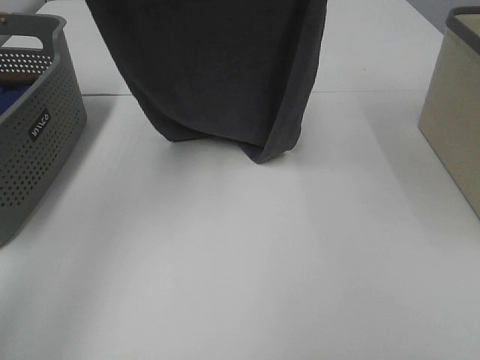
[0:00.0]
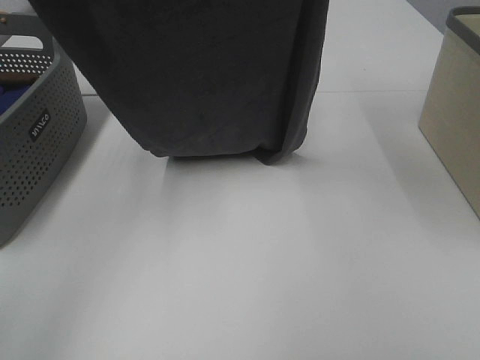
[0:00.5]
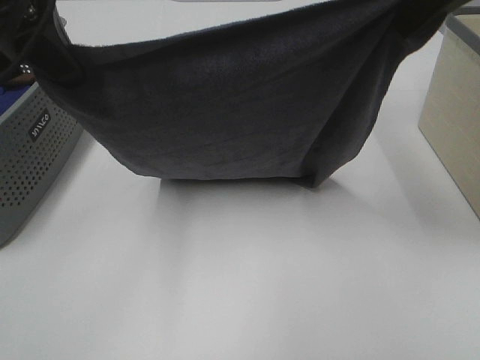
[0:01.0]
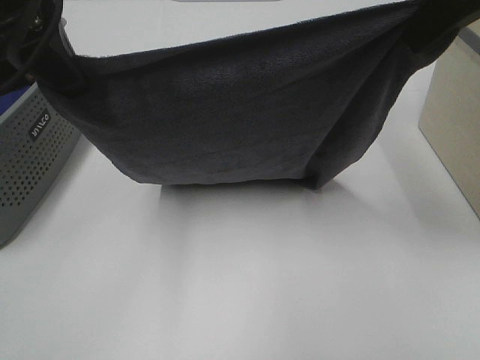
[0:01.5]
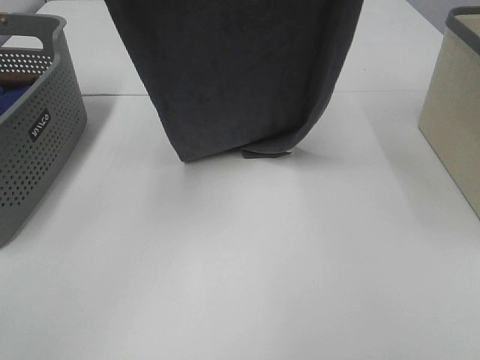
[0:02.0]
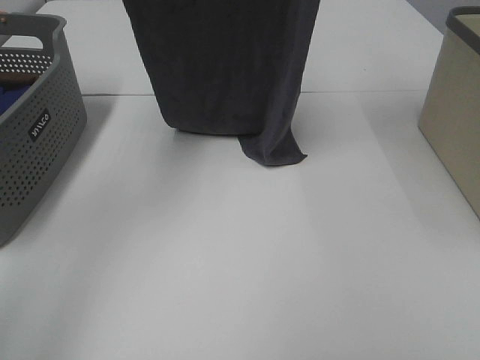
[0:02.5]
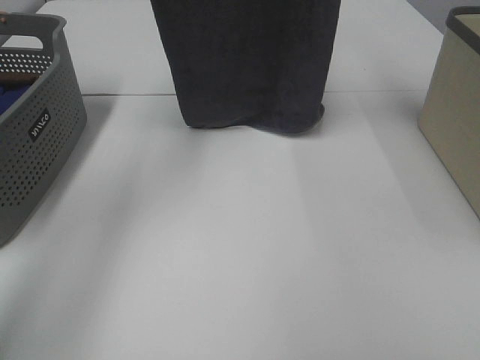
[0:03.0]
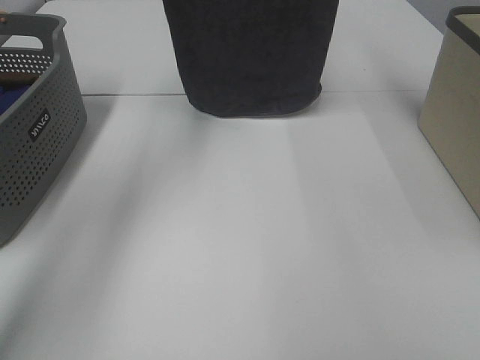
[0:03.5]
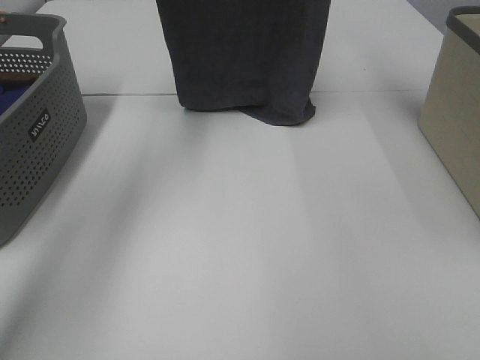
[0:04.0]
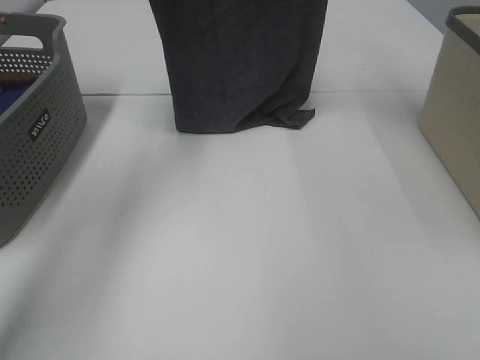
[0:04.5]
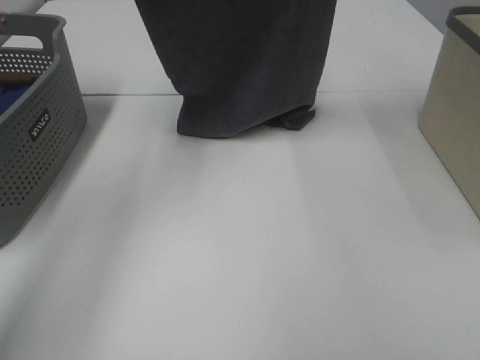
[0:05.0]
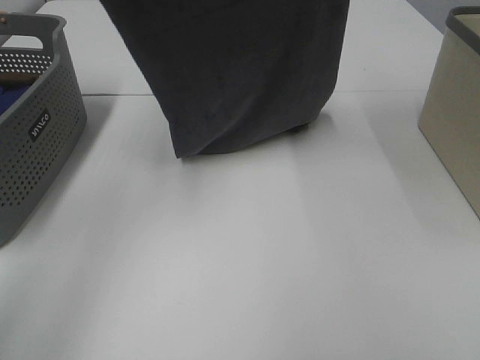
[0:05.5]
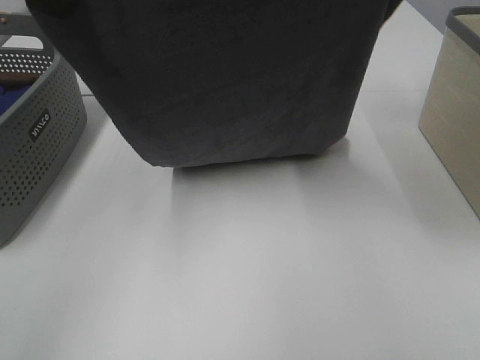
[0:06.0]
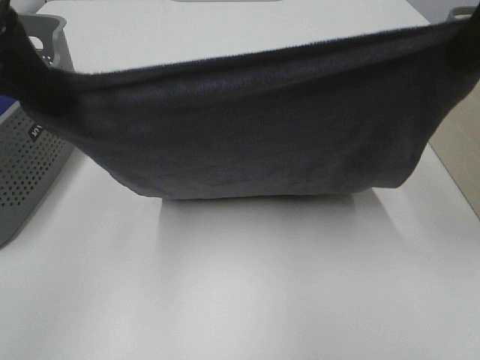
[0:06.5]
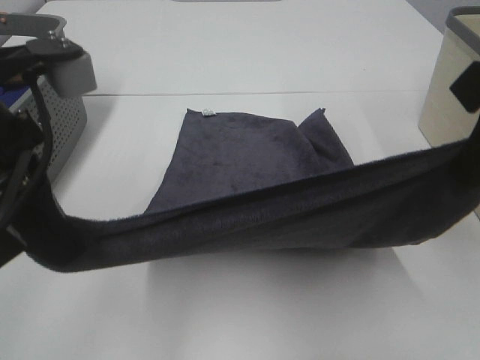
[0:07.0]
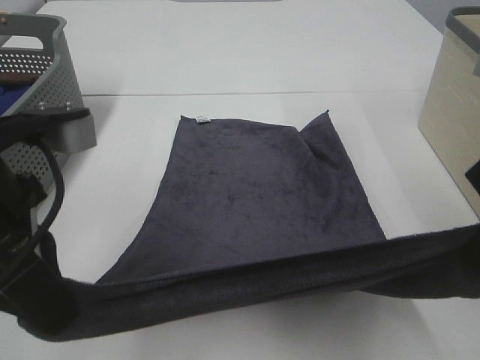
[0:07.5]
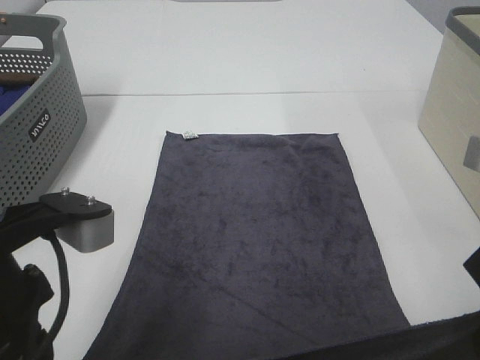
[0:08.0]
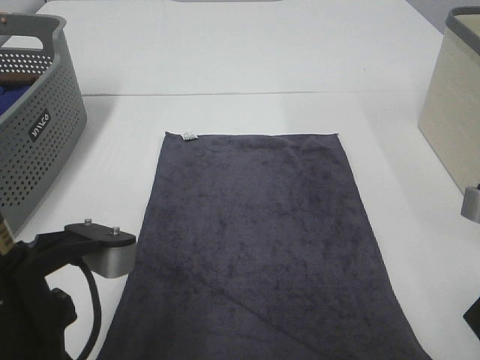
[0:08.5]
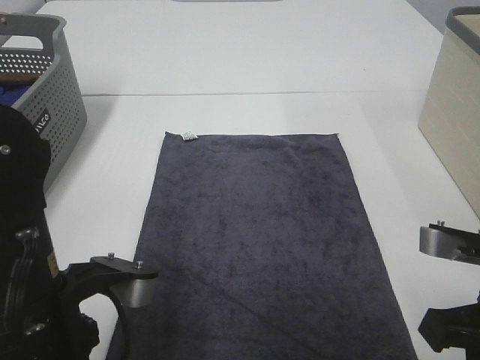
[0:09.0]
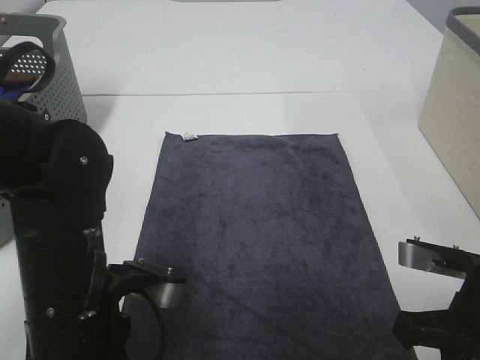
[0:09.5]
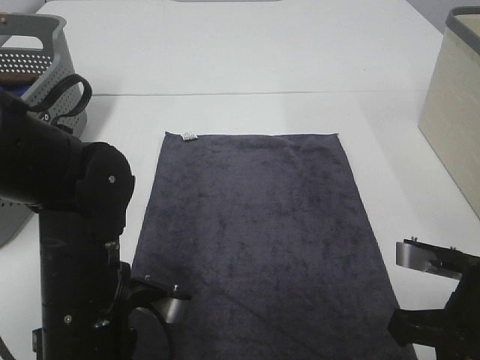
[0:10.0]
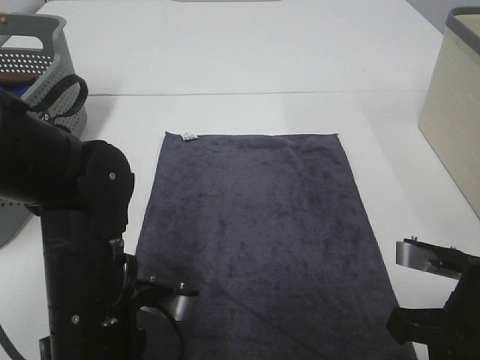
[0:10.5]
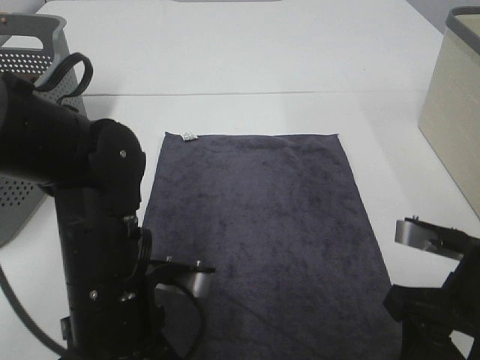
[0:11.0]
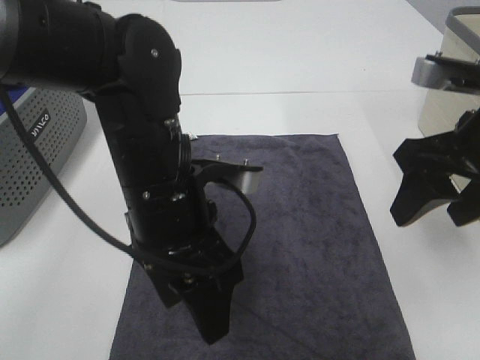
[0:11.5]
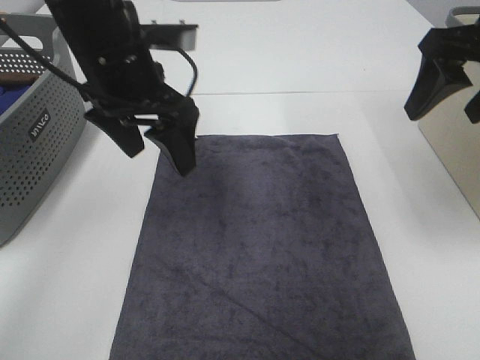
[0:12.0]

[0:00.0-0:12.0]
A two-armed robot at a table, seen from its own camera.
Task of the whole recording: Remove the towel and place it.
Step, 0:00.0 to 0:04.5: Left hand: spread the grey towel flat on the table.
Step, 0:00.0 to 0:04.5: Right hand: spread the grey towel flat on the table.
0:00.0 to 0:02.0: The left gripper heads backward, covering about 5 cm; the right gripper reaches some 5 cm downward, then returns.
0:02.0 to 0:04.0: Both grippers move forward, roughly 15 cm.
0:04.0 to 0:06.0: Both grippers move backward, approximately 20 cm.
0:06.0 to 0:08.0: The left gripper is displaced backward and downward by some 25 cm. The right gripper travels downward and backward by approximately 25 cm.
0:08.0 to 0:10.0: Both grippers travel together downward, about 10 cm.
0:10.0 to 0:12.0: The right gripper goes approximately 25 cm upward and forward, and opens its fingers, while the left gripper shifts about 25 cm forward and upward, and opens its fingers.

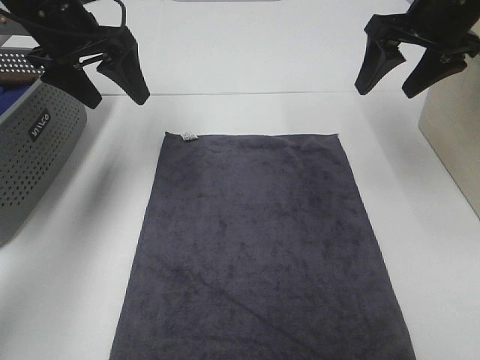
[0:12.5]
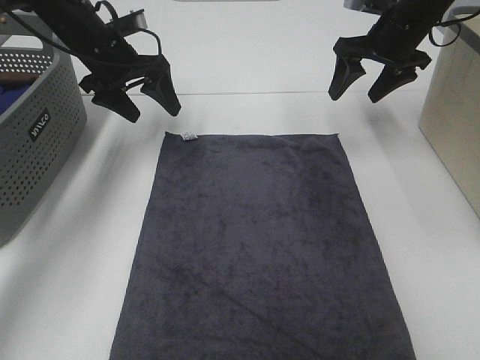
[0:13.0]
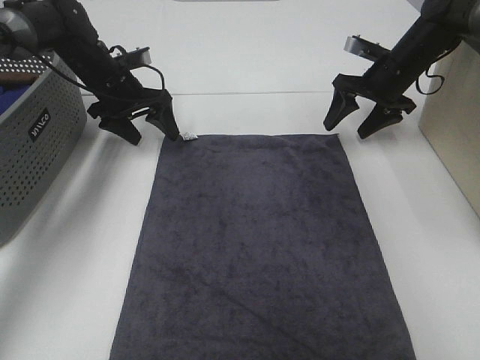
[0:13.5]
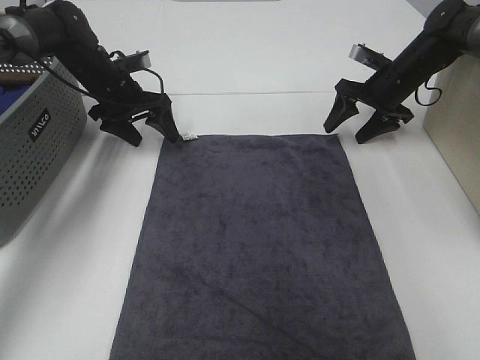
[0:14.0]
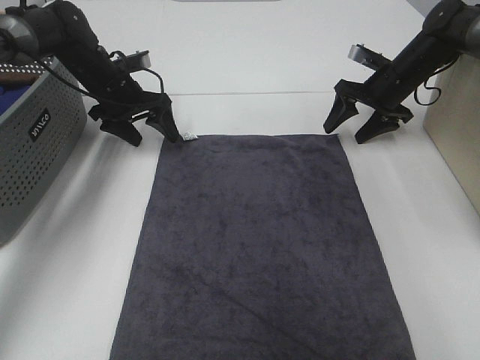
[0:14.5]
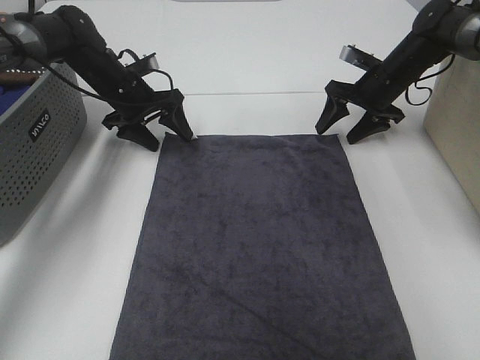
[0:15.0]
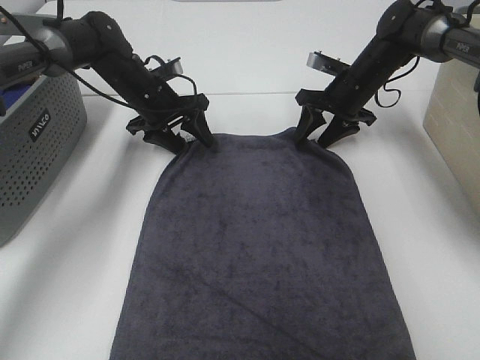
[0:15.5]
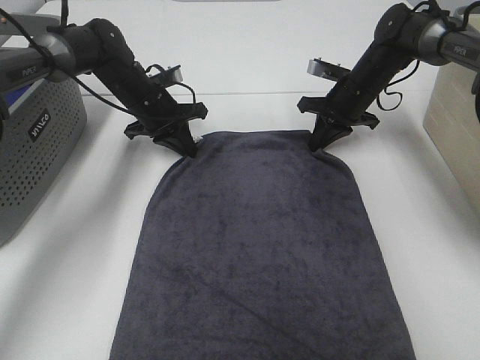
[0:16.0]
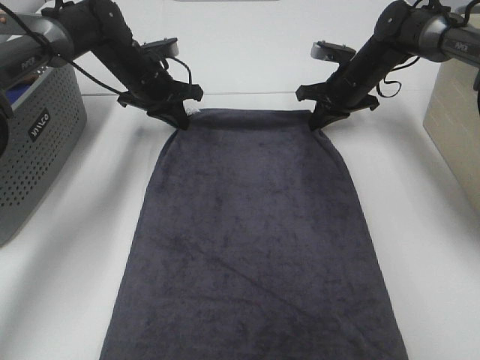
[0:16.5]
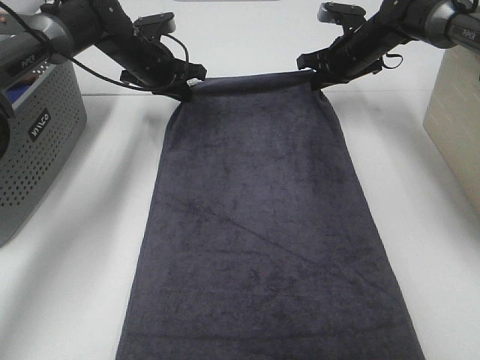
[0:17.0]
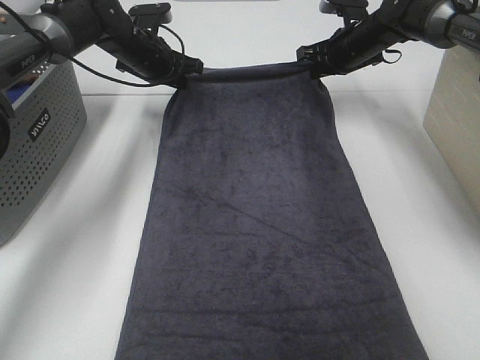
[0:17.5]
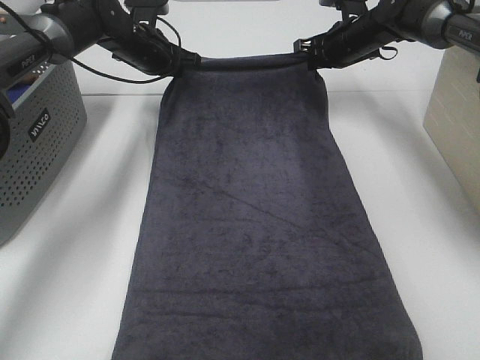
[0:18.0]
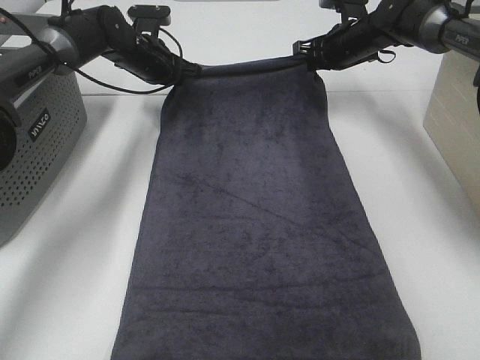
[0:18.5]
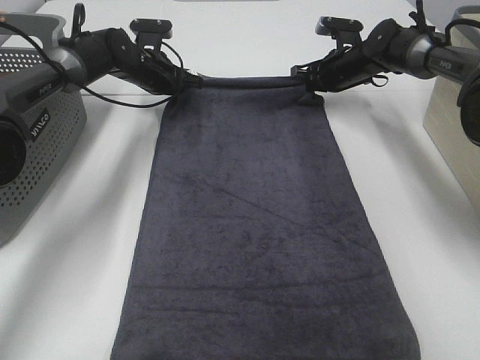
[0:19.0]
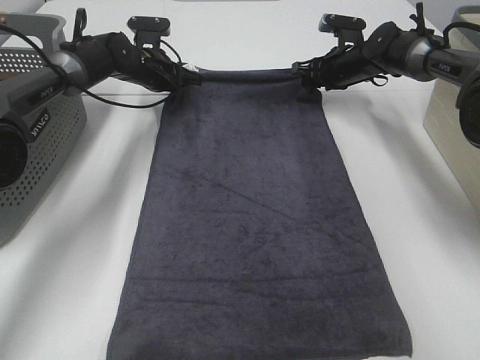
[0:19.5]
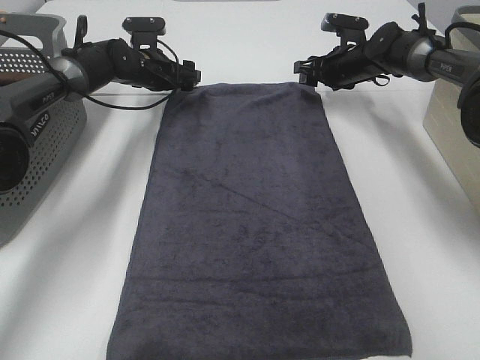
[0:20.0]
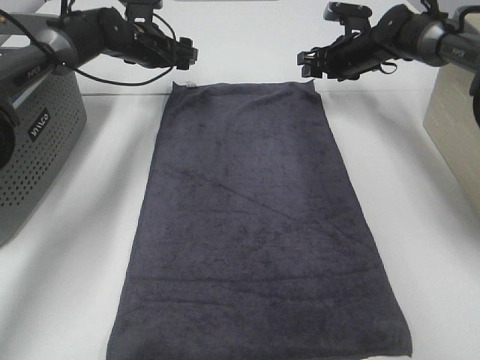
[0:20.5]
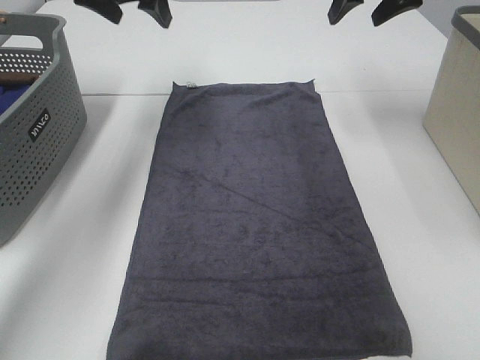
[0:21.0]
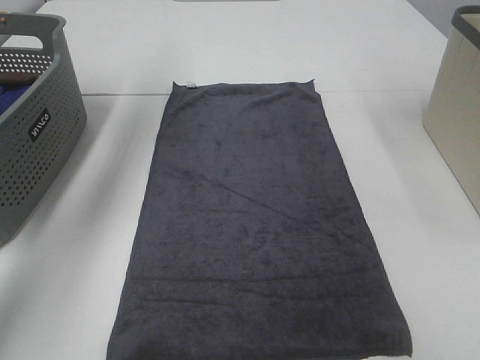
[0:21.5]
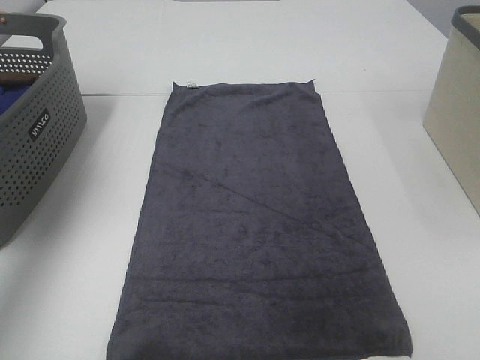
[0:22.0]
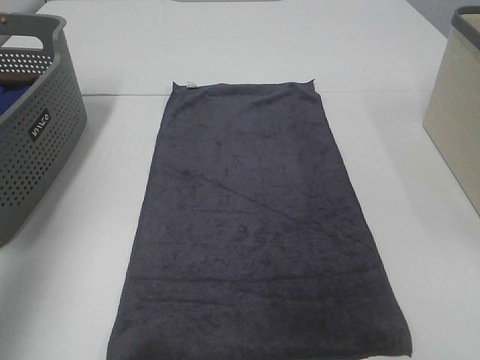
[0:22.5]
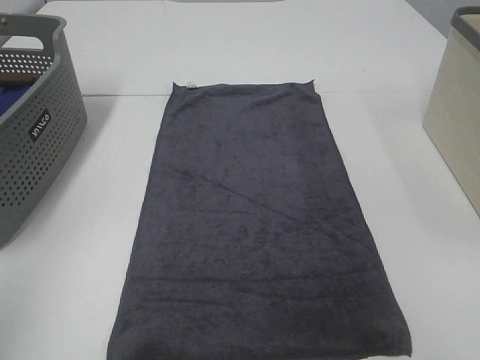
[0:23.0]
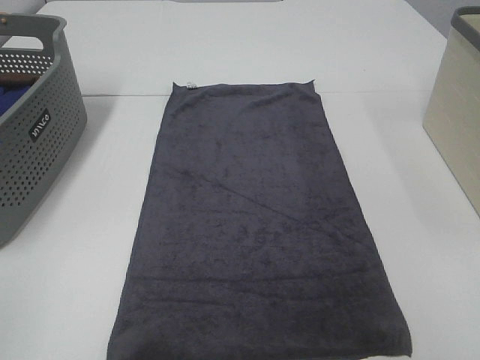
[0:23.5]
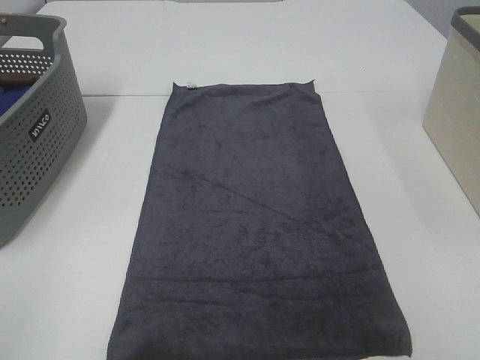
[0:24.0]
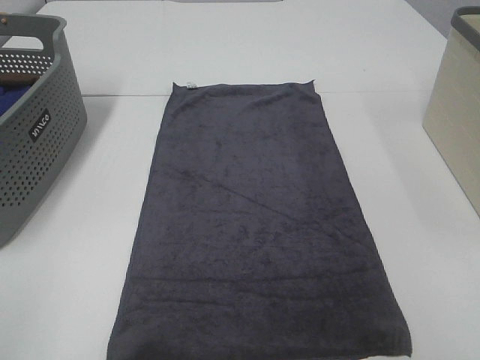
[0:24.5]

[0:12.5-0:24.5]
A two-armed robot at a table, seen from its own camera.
Task of the whole recording: Remove the towel and place it.
0:12.5 to 0:14.5: Both grippers move downward and forward, some 20 cm.
0:14.5 to 0:16.5: The right gripper moves to the left, approximately 5 cm, and closes. The left gripper changes place by approximately 5 cm, and closes up.
0:18.5 to 0:20.5: The left gripper opens up; the right gripper opens its fingers.
0:20.5 to 0:22.5: The right gripper travels backward and upward by about 50 cm; the left gripper heads backward, upward and to the left, covering about 50 cm.
0:22.5 to 0:24.5: The left gripper shifts about 25 cm backward and downward.

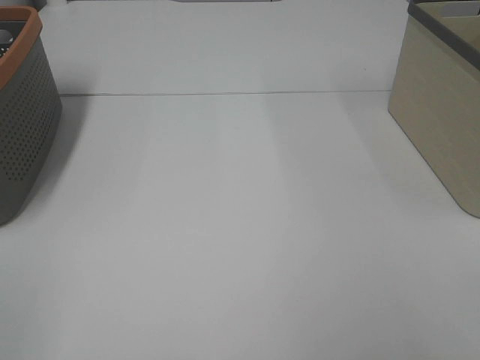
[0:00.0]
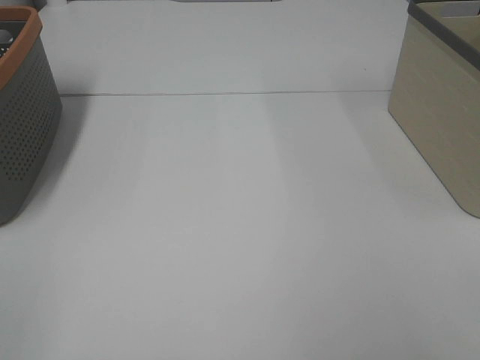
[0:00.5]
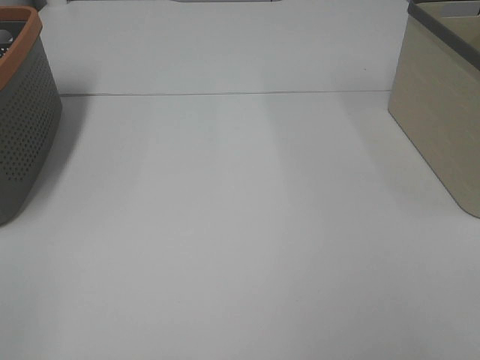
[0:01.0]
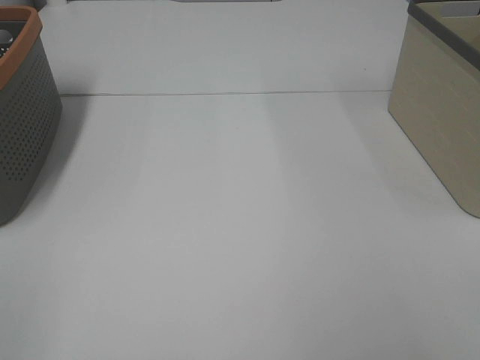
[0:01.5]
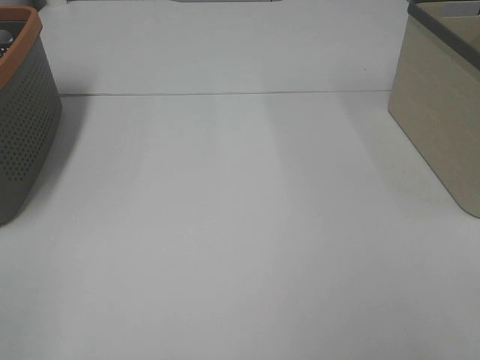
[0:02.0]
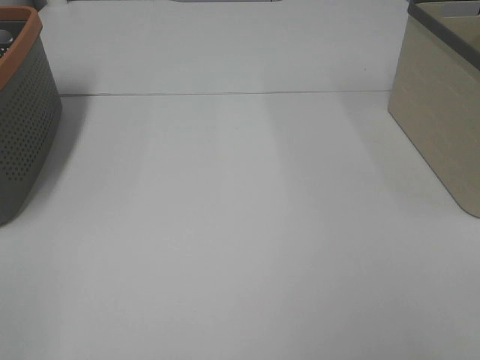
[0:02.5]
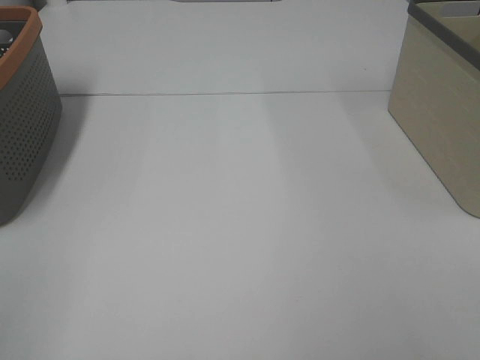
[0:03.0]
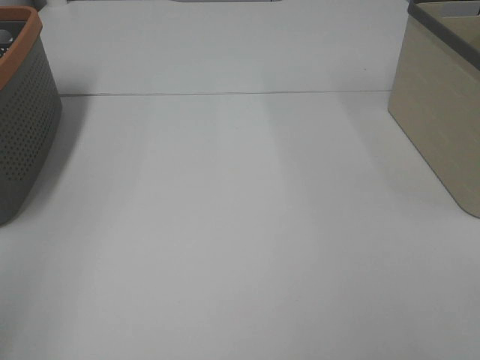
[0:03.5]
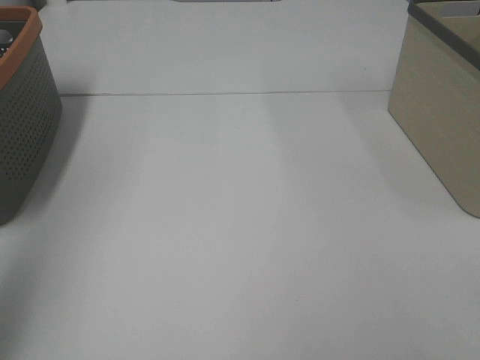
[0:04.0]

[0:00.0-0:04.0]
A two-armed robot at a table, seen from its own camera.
Task of the whole recording: Remove the towel and place it.
0:00.0 to 0:02.0: Both grippers stay about where they are.
0:02.0 to 0:04.0: The left gripper shifts some 20 cm forward and upward.
